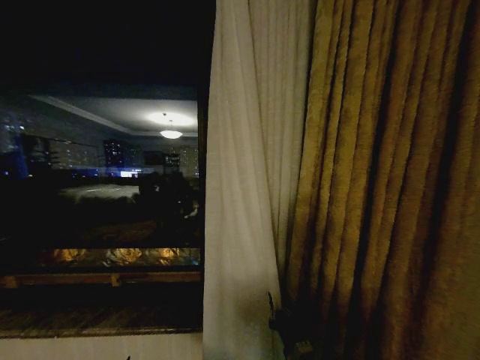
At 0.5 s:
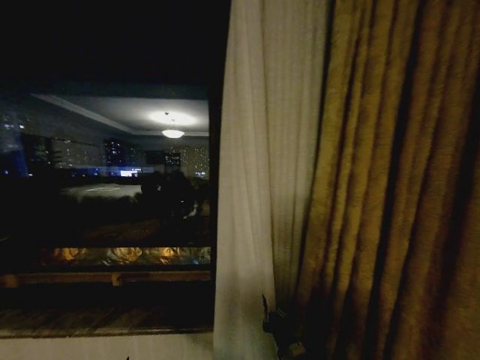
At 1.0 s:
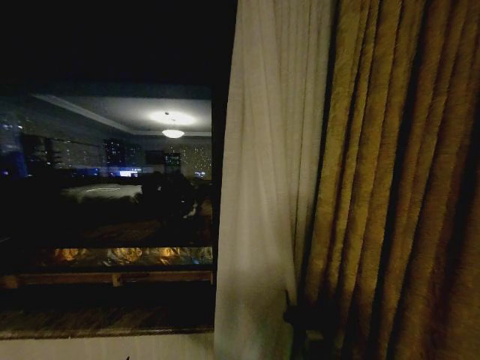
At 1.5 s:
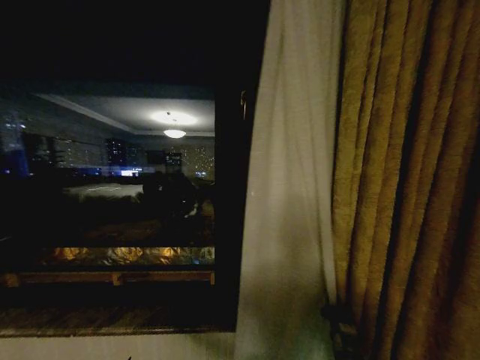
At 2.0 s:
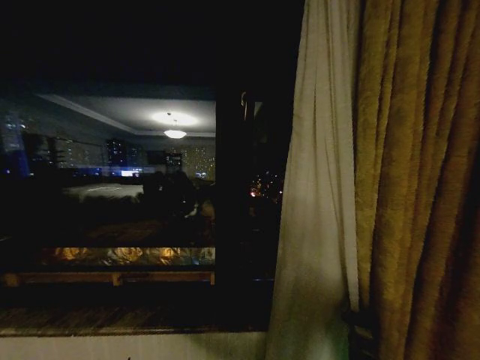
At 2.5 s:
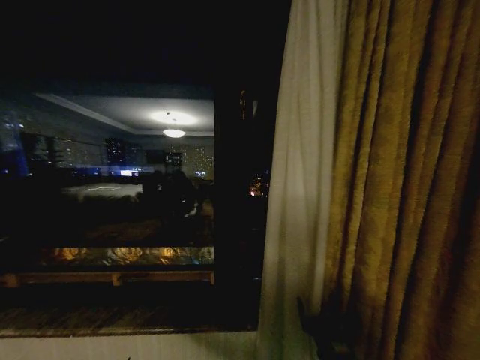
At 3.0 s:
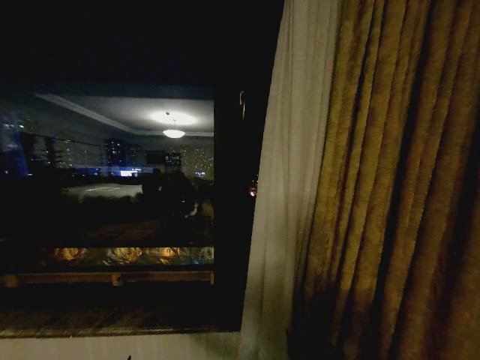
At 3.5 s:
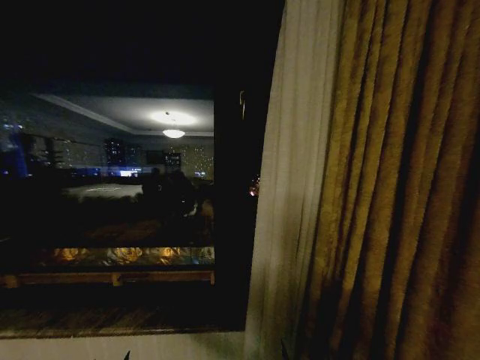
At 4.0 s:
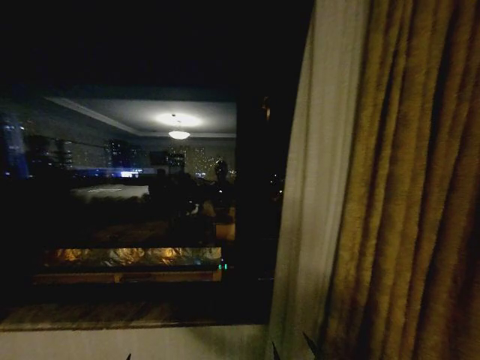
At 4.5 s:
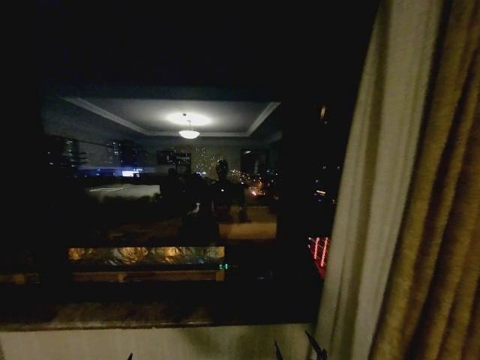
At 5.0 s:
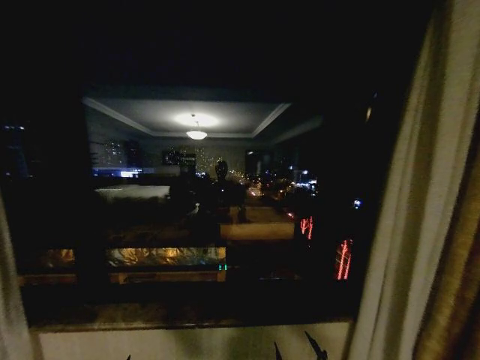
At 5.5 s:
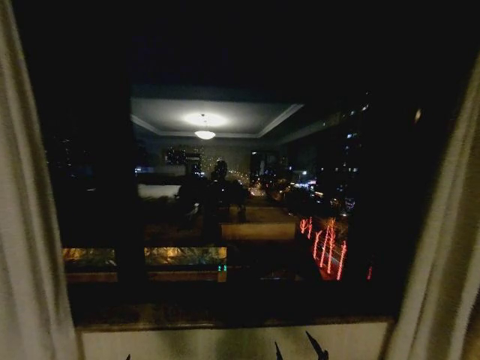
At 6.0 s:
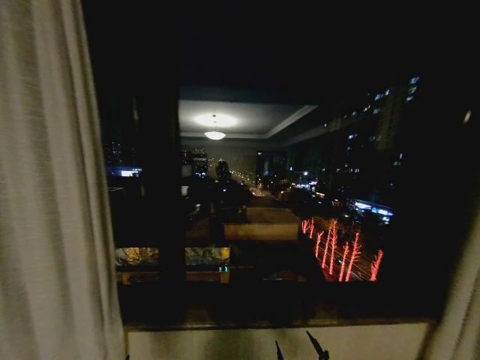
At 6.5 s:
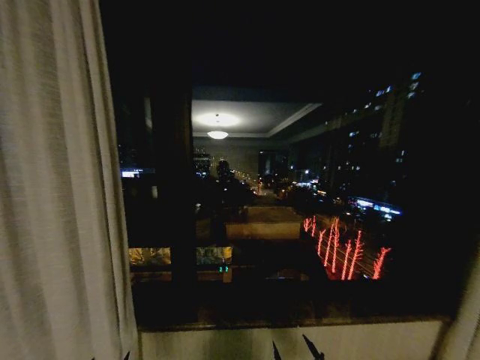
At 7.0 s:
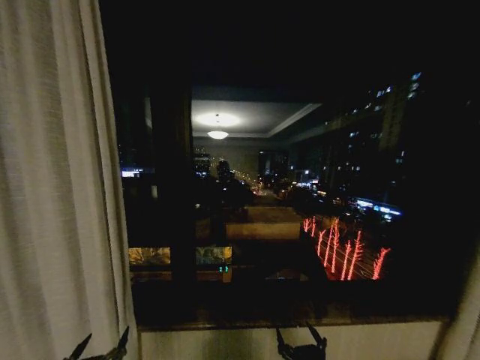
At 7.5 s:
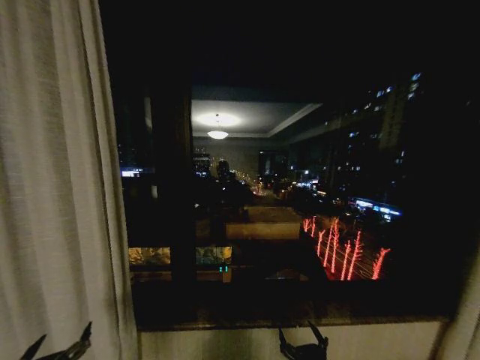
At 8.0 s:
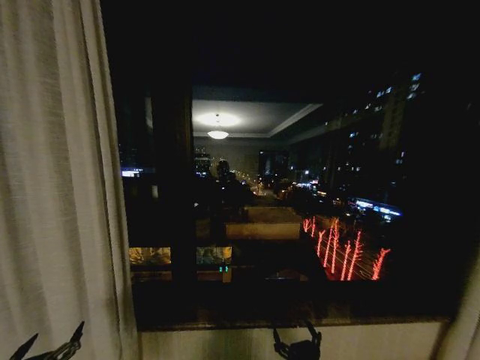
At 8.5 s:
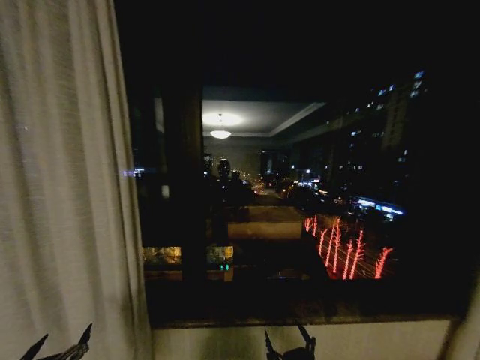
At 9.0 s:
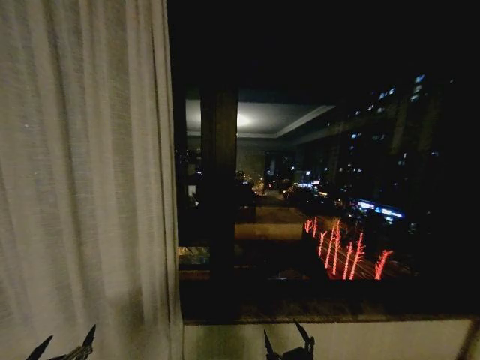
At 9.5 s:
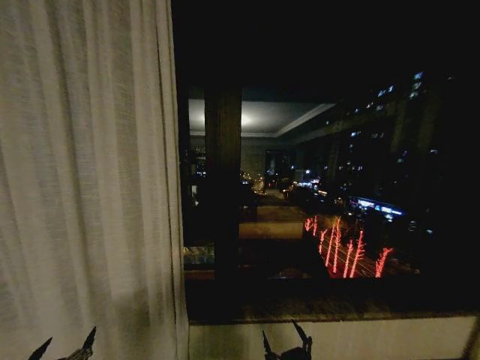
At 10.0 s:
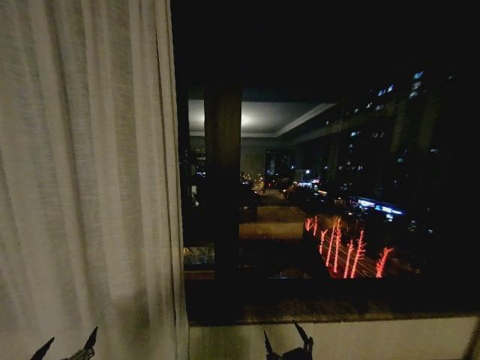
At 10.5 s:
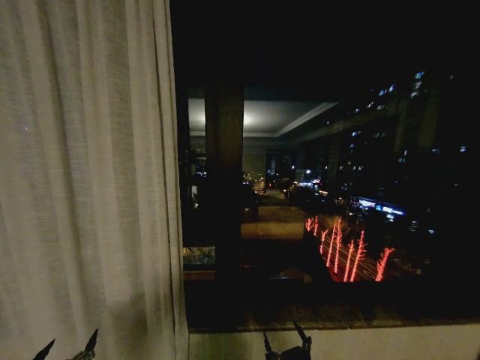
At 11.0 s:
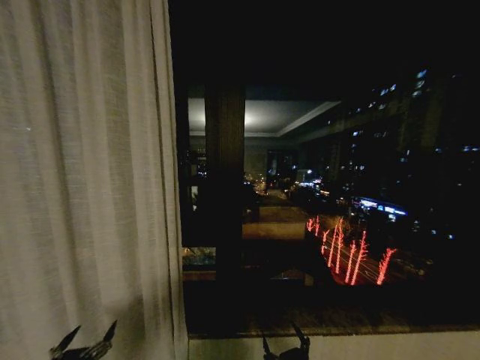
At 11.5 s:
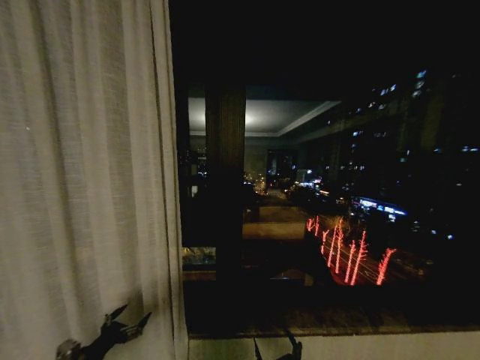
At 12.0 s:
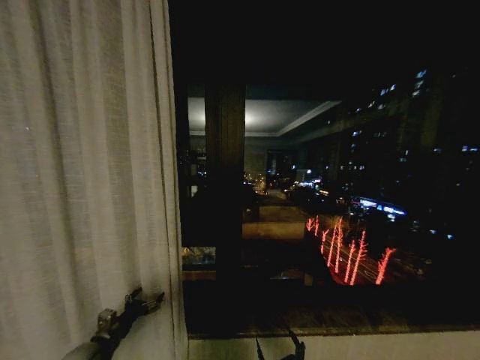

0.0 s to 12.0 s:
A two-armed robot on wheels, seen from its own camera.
Task of the whole recording: Open the curtains by pulling them apart, changing their state from closed to fully open.
0.0 to 2.0 s: The right gripper heads to the right, covering some 15 cm.
2.0 to 4.0 s: The right gripper shifts about 25 cm backward and to the left, and opens up.
6.0 to 8.0 s: The left gripper heads upward and to the left, covering some 15 cm.
10.0 to 12.0 s: The left gripper heads forward, covering about 20 cm.

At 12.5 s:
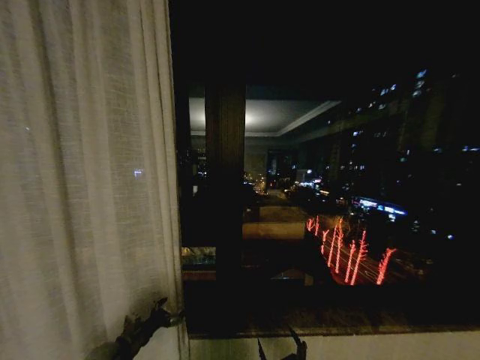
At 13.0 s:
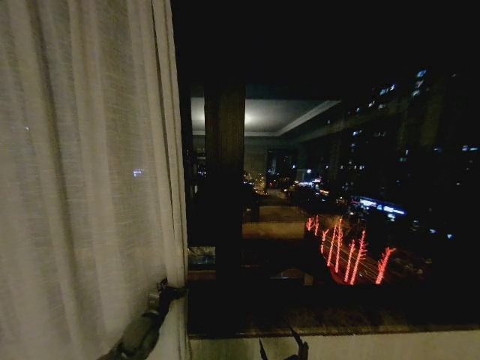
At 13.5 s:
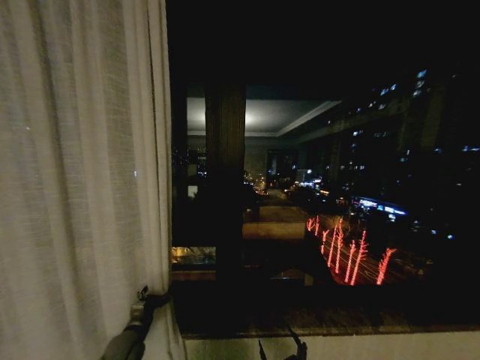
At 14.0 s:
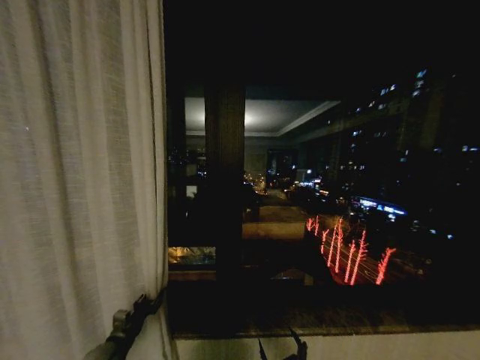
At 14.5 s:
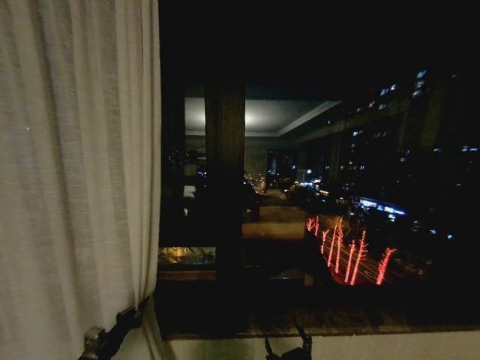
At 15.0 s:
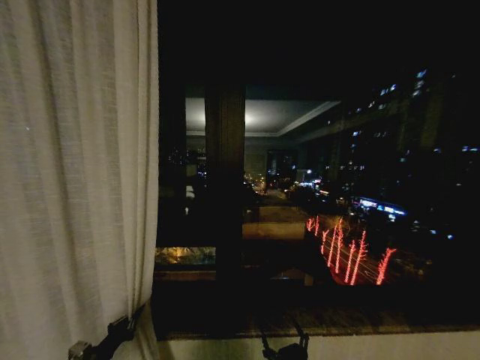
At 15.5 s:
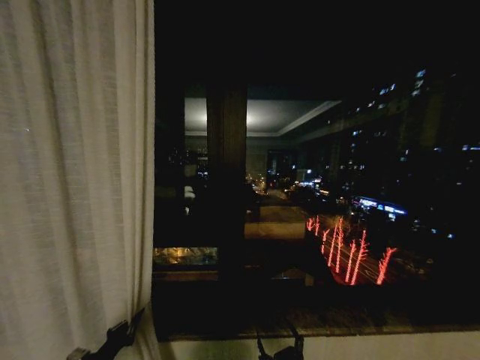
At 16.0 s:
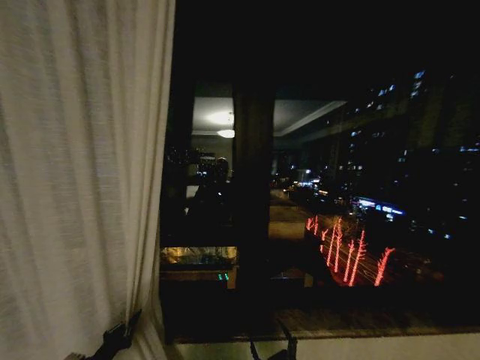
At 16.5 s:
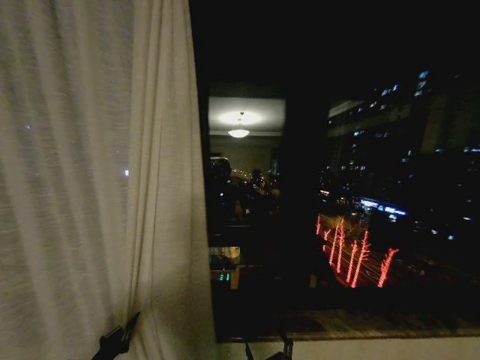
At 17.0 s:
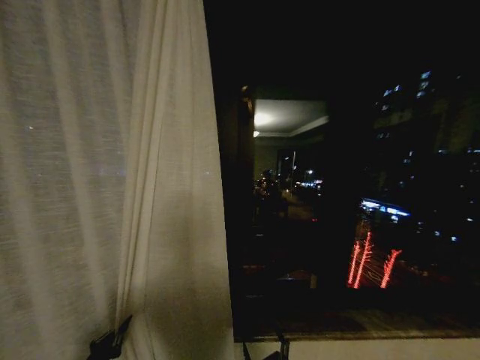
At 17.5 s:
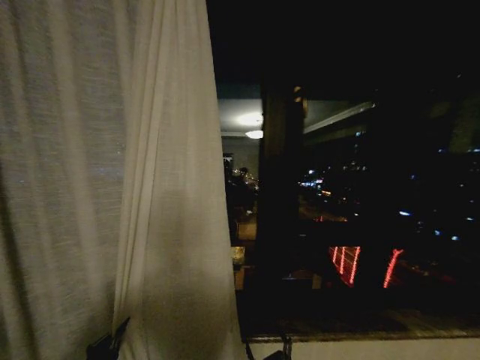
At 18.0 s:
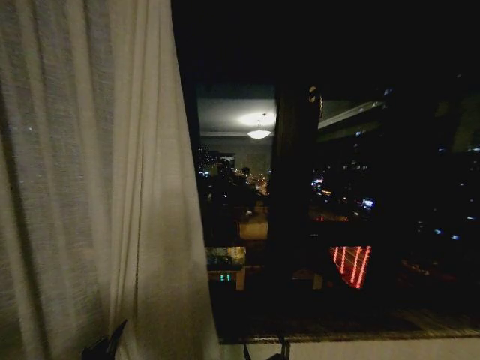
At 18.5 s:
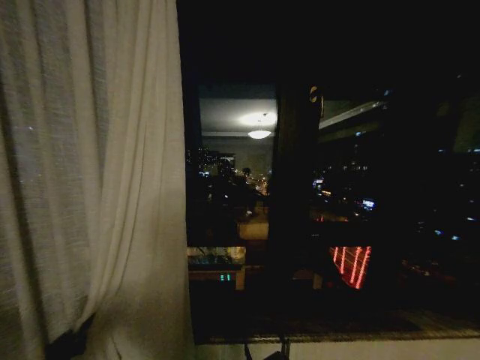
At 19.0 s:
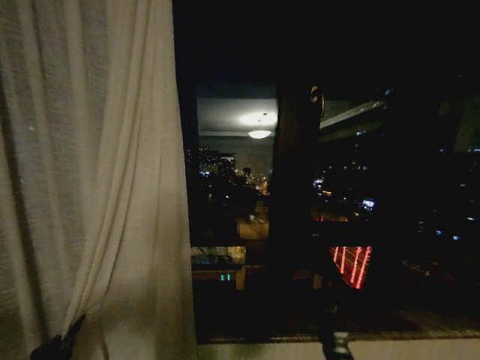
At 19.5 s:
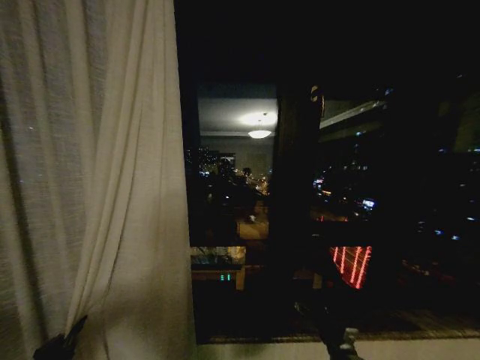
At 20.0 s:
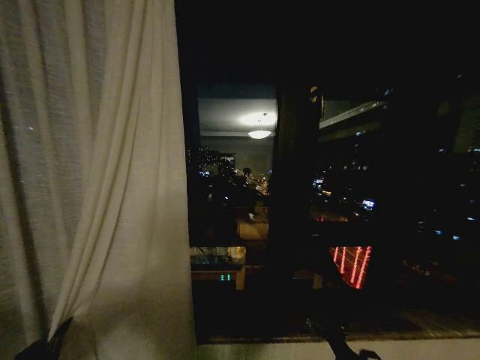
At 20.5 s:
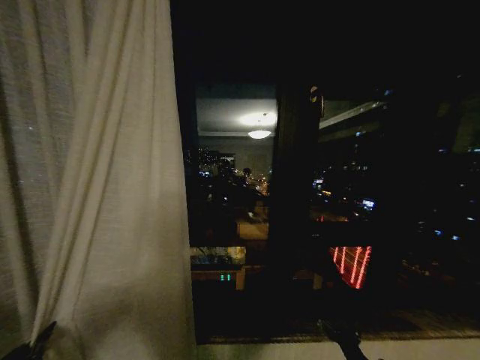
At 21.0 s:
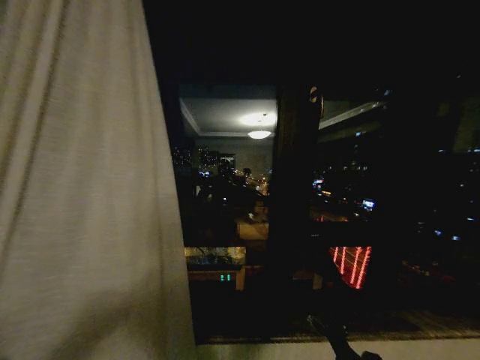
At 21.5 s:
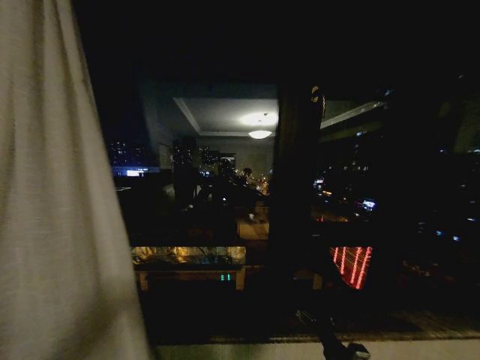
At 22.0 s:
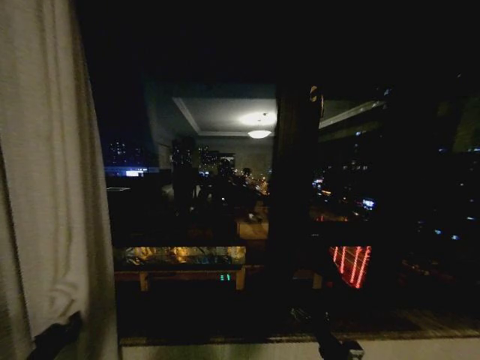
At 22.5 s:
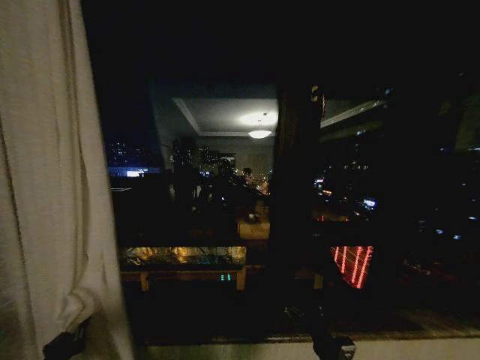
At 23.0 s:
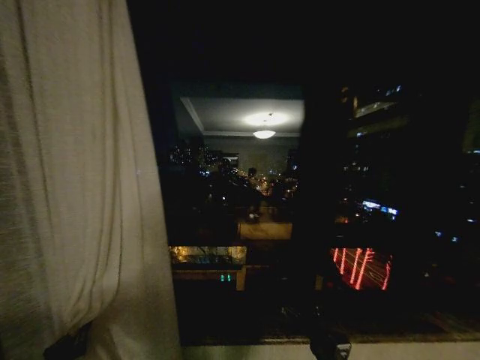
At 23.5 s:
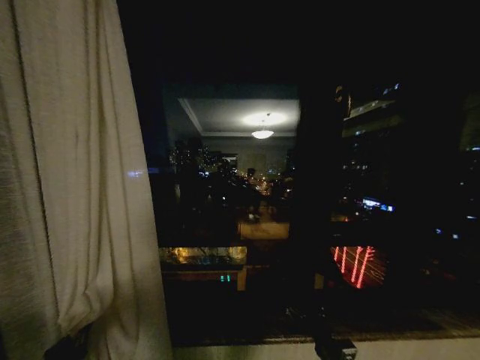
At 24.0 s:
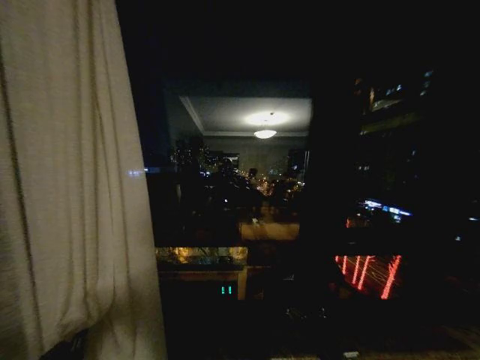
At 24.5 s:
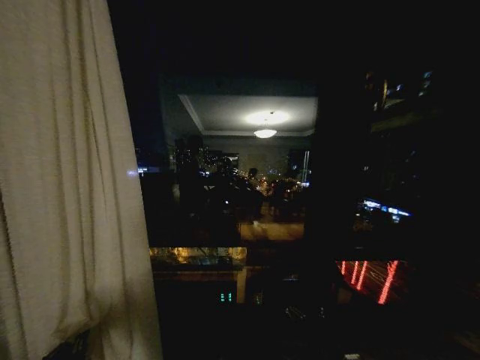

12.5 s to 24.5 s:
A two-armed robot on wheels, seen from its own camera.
Task of the whole recording: Open the curtains by pulling them apart, changing their state from closed to fully open.
12.5 to 14.5 s: The left gripper moves backward, roughly 5 cm, and closes.
14.5 to 16.5 s: The left gripper travels backward by roughly 5 cm.
16.5 to 18.5 s: The left gripper shifts approximately 5 cm to the left.
18.5 to 20.5 s: The right gripper travels to the right by roughly 15 cm. The left gripper travels to the left by roughly 5 cm.
20.5 to 22.5 s: The right gripper goes about 5 cm to the left; the left gripper travels to the right by approximately 10 cm.
22.5 to 24.5 s: The grippers make only small movements.

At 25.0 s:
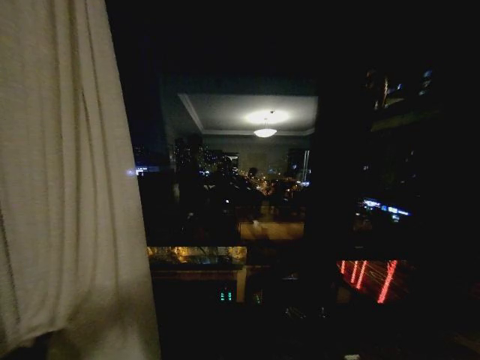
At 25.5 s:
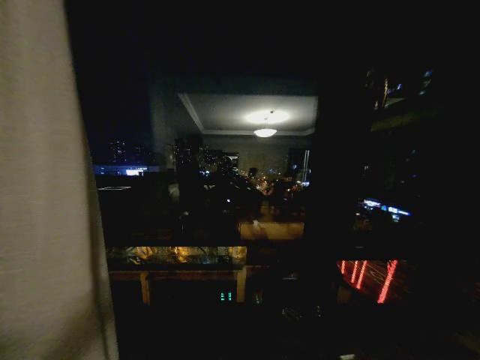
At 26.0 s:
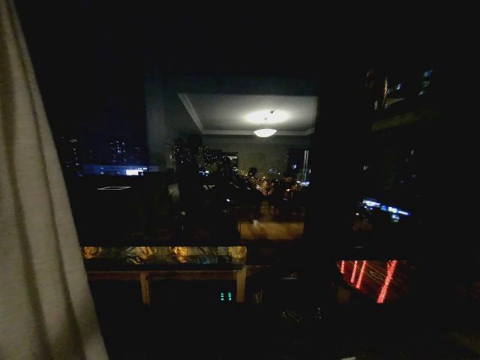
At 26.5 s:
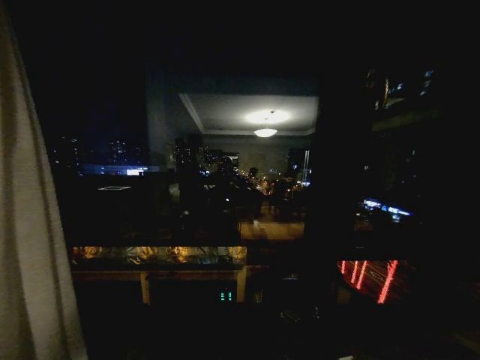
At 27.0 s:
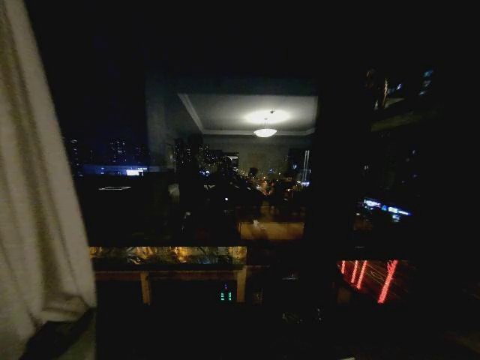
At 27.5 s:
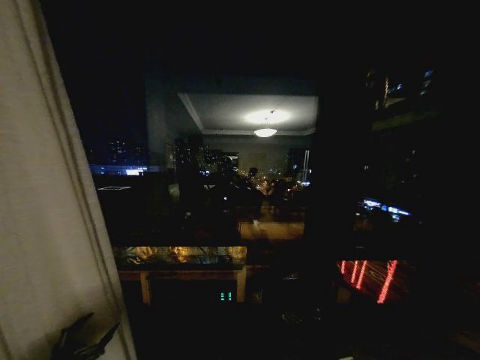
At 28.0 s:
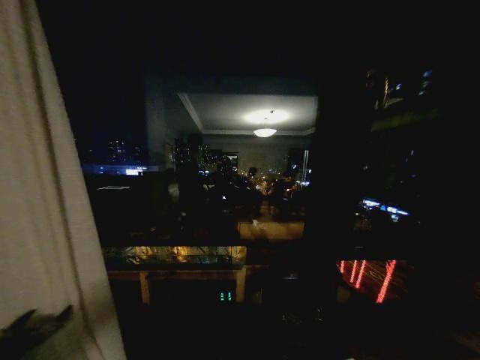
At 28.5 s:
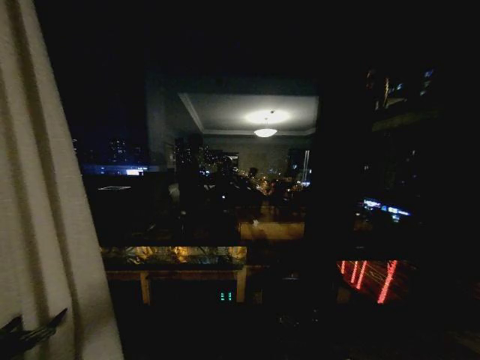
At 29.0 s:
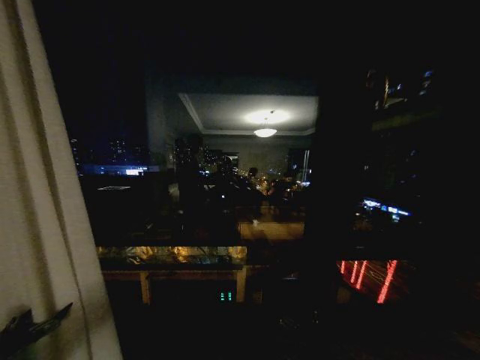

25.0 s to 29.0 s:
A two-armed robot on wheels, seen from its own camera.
Task of the whole recording: Open the curtains by pulling them apart, changing their state from closed to fully open.
25.0 to 27.0 s: The left gripper moves some 20 cm to the left and comes back, and opens its fingers.
27.0 to 29.0 s: The left gripper moves to the left, roughly 10 cm.
